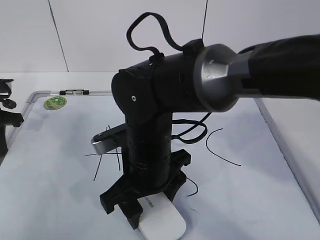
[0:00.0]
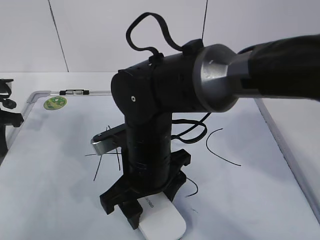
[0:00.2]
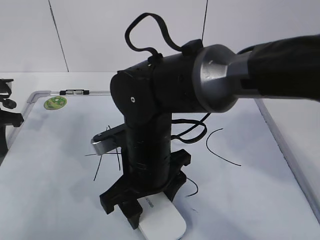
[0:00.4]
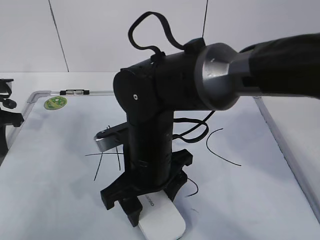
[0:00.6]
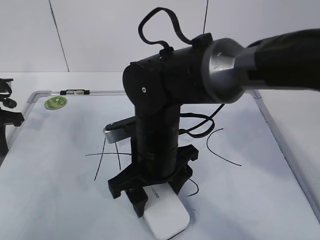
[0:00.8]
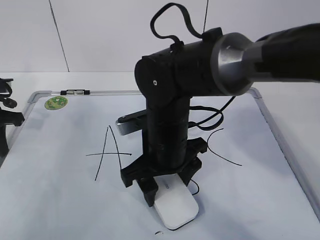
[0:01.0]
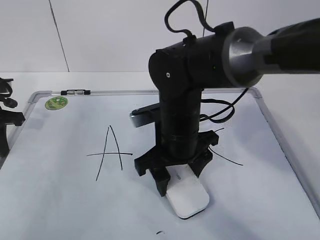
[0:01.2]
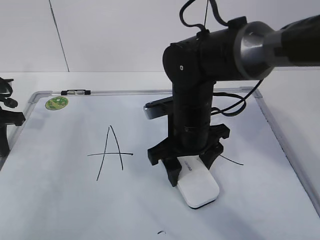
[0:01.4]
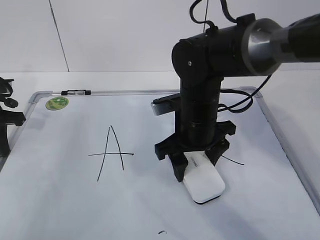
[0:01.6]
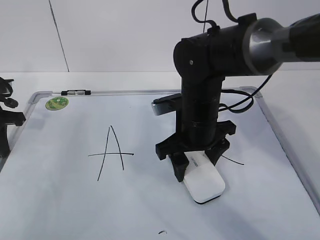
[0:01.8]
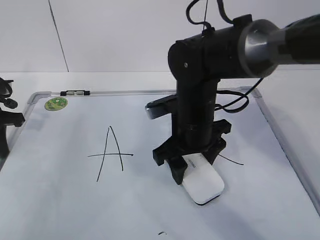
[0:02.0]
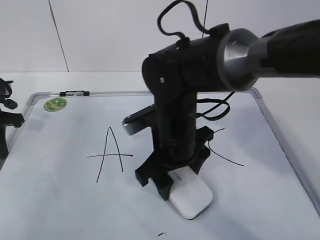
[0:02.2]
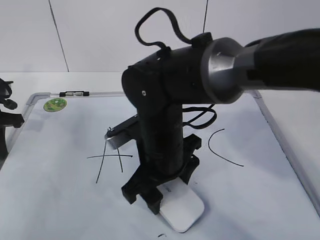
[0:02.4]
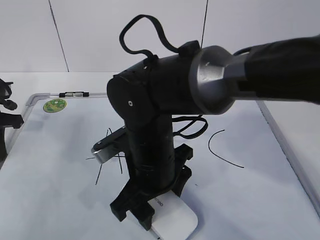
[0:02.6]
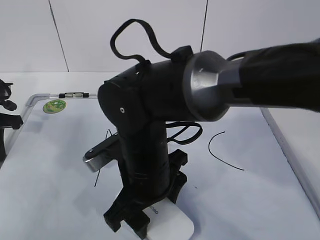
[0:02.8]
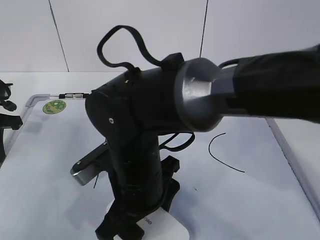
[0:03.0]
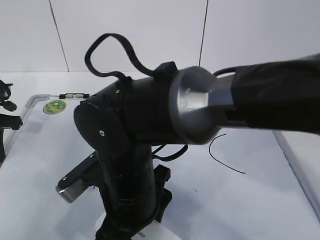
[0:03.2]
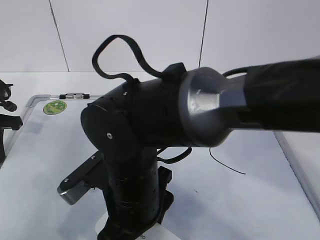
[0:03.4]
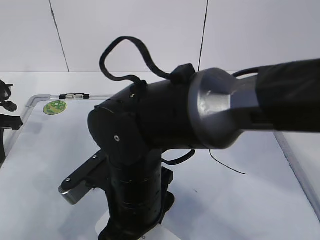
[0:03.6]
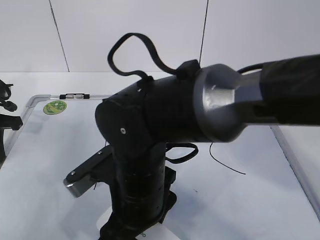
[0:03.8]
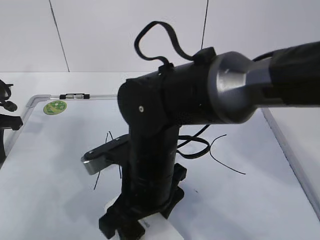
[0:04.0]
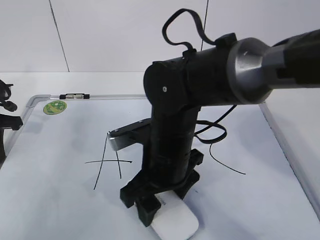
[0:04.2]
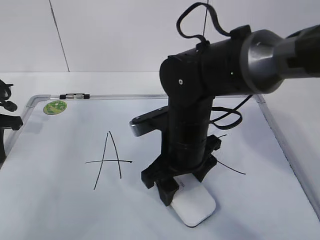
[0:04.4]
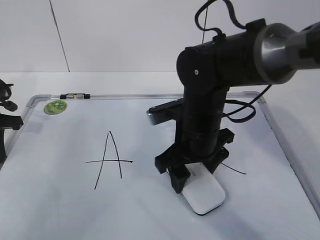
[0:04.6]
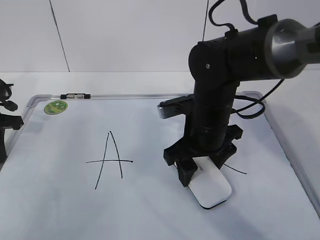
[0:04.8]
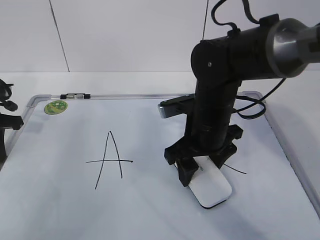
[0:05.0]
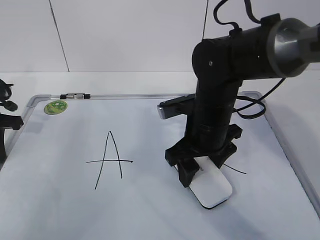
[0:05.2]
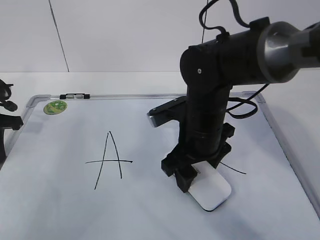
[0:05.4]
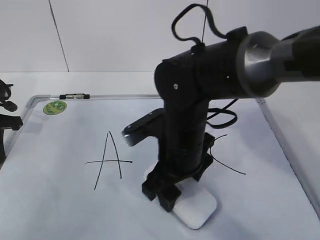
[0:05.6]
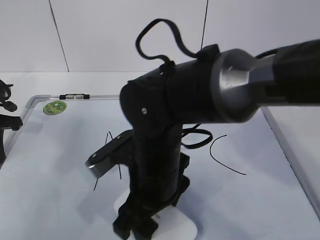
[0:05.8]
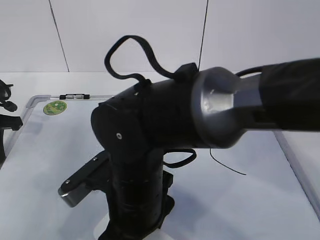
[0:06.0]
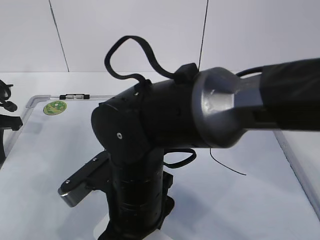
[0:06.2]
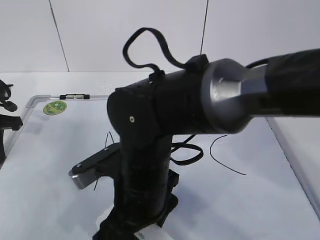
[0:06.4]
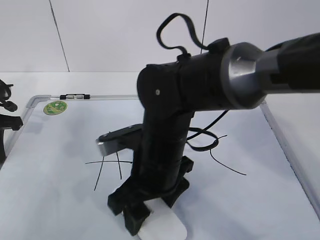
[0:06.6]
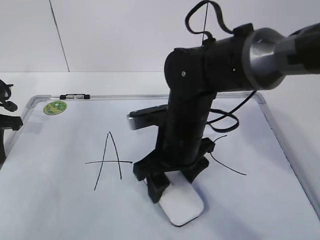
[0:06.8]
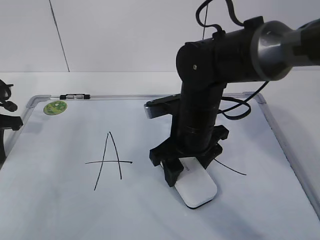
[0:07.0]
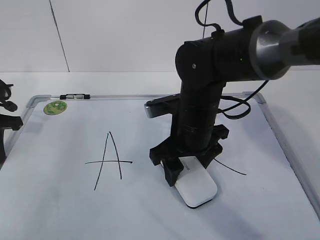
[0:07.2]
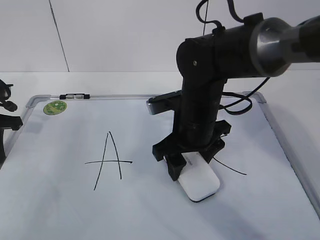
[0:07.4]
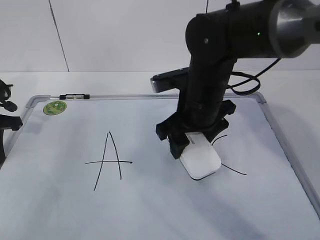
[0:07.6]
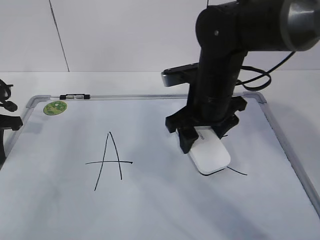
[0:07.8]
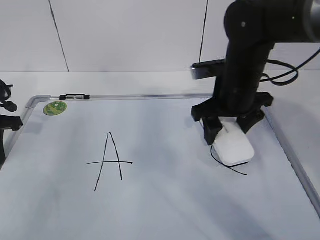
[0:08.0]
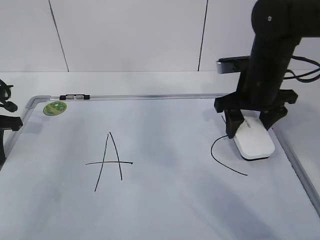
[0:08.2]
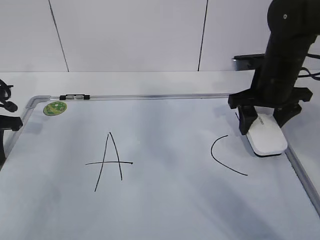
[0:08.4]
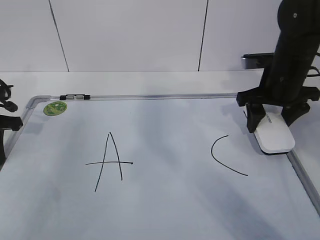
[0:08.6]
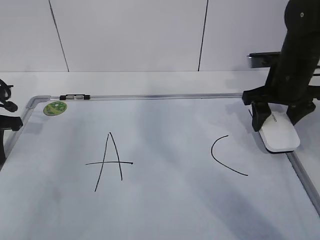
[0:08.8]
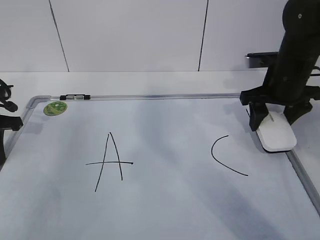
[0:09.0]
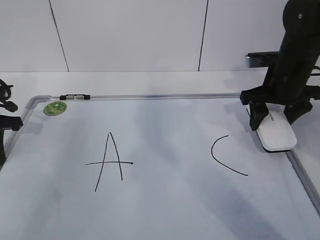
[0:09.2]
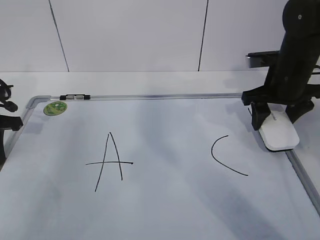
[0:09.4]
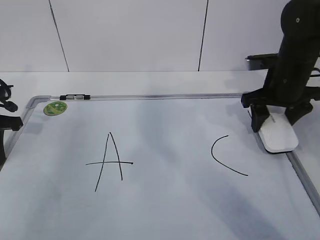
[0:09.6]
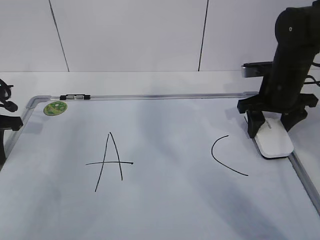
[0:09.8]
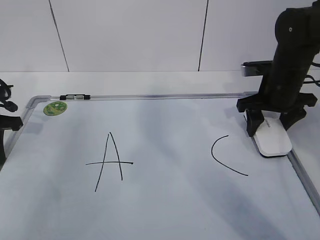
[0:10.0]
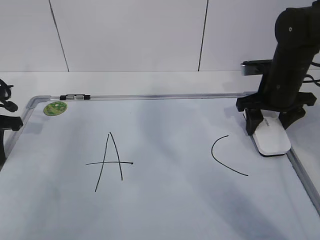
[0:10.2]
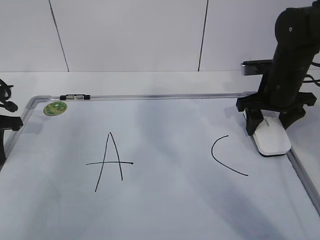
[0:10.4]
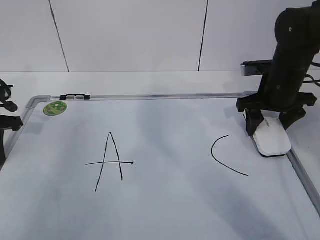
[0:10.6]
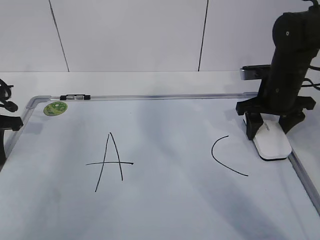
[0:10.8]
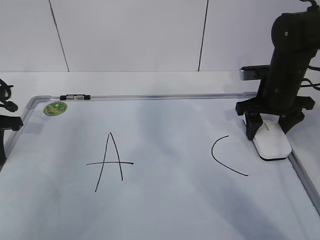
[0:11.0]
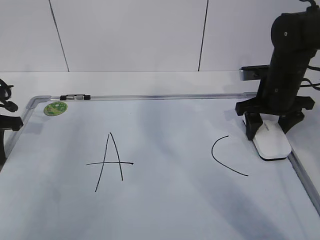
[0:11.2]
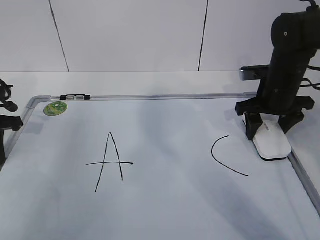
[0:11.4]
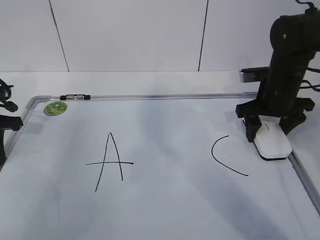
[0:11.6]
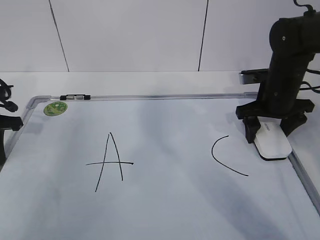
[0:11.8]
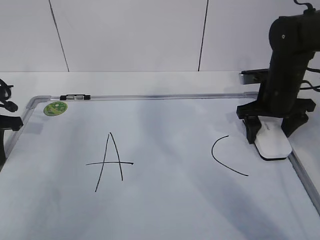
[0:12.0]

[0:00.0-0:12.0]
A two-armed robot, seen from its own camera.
Task of the whole recording: pick up the eraser on the blackboard and erase the letter "B".
Step, 0:00.0 to 0:02.6: Erase the letter B with your right hand.
Step, 0:02.8 to 0:06.2: Put down the eraser with your right hand.
0:00.0 to 0:01.6: The right gripper shifts roughly 10 cm to the right and forward.
0:01.6 to 0:03.0: The right gripper goes some 15 cm backward and to the left.
0:03.0 to 0:04.4: The right gripper shifts some 10 cm to the right and forward.
0:04.4 to 0:06.0: The right gripper is displaced backward and to the left by approximately 10 cm.
0:06.0 to 0:07.6: The right gripper travels forward and to the right by some 15 cm.
0:07.6 to 0:09.0: The right gripper shifts approximately 15 cm to the right.
0:09.0 to 0:10.4: The grippers stay close to where they were, moving slightly.
0:10.4 to 0:12.0: The right gripper opens.

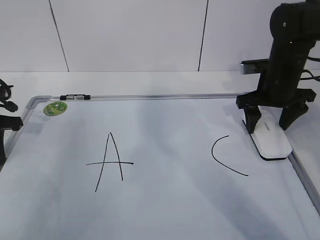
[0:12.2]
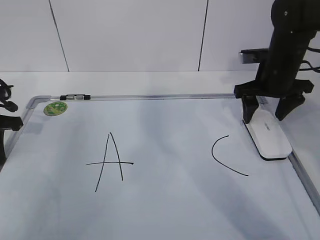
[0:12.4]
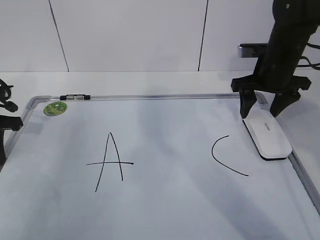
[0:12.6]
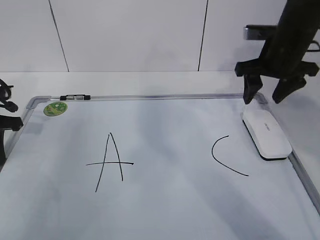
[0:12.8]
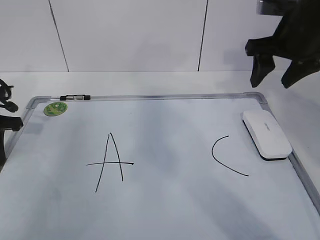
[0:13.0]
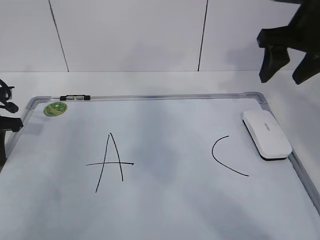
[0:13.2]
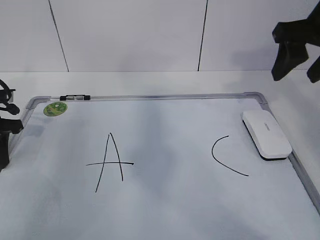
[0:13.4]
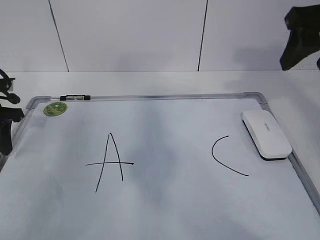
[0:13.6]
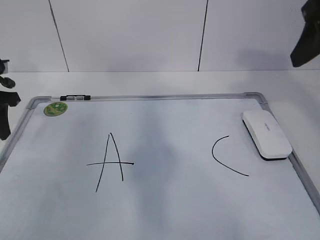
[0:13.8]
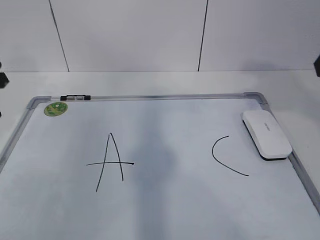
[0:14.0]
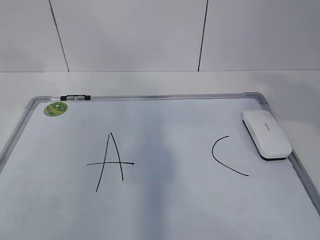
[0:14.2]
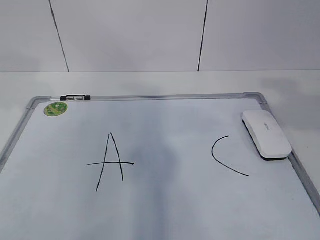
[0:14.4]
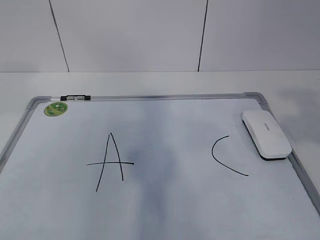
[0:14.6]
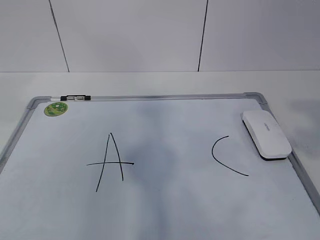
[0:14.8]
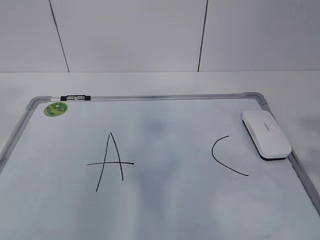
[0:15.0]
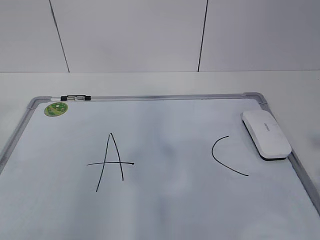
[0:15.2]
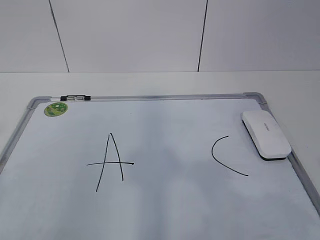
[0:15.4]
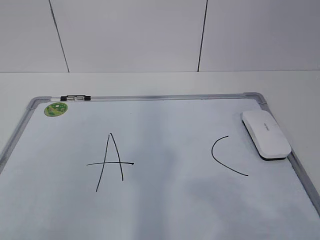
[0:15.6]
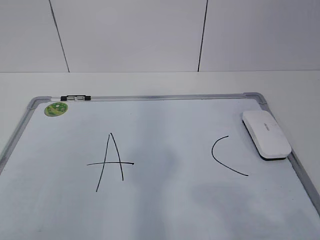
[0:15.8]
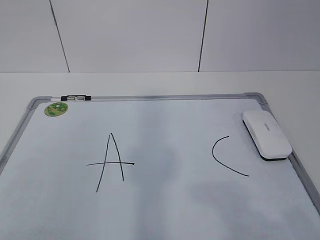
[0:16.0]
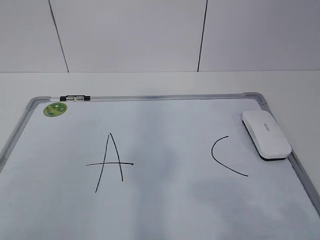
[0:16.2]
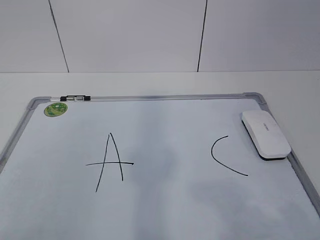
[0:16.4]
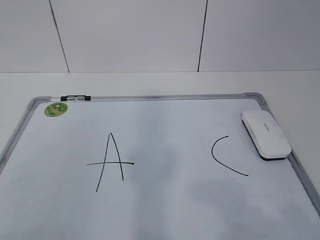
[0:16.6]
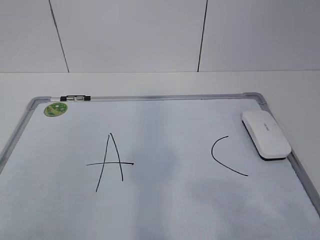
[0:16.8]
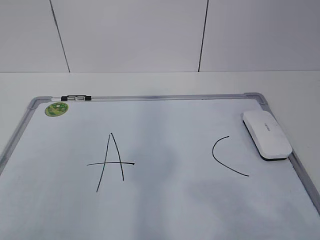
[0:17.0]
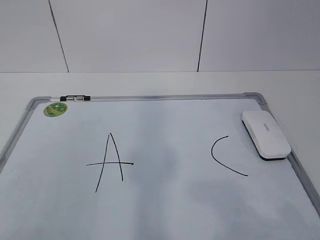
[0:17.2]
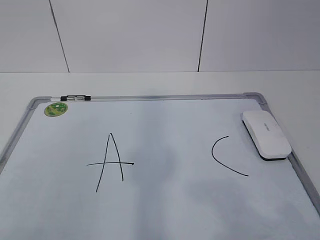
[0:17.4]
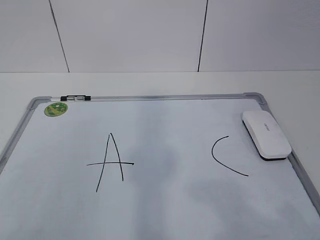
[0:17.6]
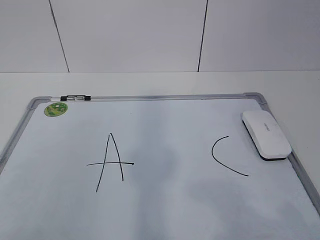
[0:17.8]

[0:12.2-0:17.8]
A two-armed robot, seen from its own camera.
Task of the whole recording: pick up the eraser on the blackboard and erase the letter "B".
0:12.2 to 0:13.6: The left gripper opens; the right gripper is displaced upward and backward by about 20 cm, and closes up.
0:13.6 to 0:15.0: The left gripper is displaced backward and upward by some 35 cm. The right gripper goes some 25 cm backward.
0:15.0 to 0:16.4: The left gripper shifts about 15 cm backward and downward.
0:16.4 to 0:17.8: The two grippers keep their place.

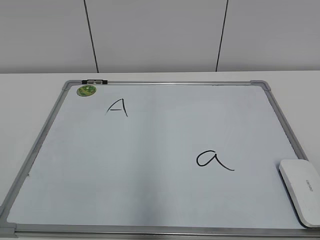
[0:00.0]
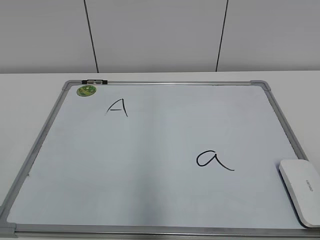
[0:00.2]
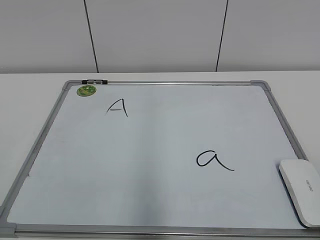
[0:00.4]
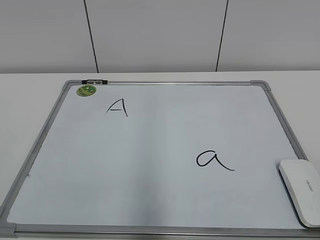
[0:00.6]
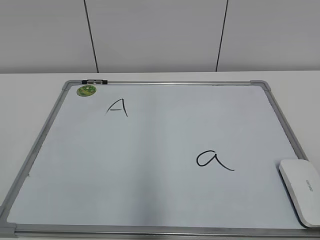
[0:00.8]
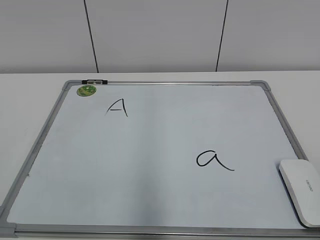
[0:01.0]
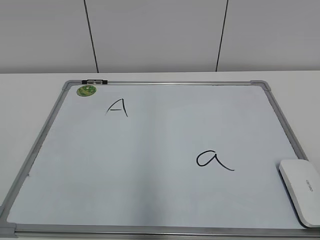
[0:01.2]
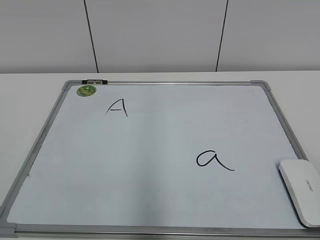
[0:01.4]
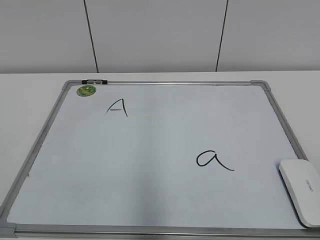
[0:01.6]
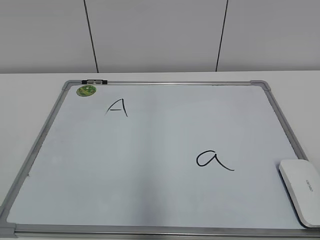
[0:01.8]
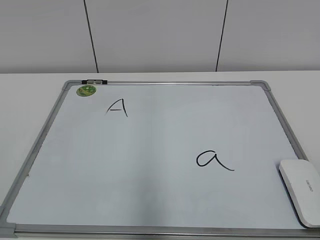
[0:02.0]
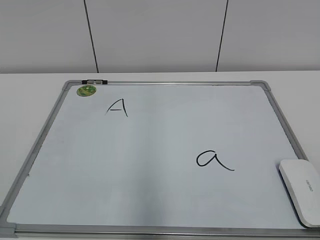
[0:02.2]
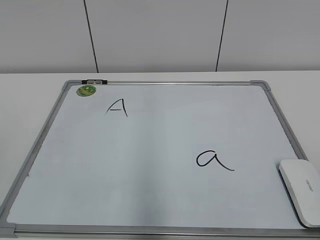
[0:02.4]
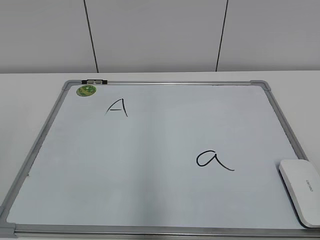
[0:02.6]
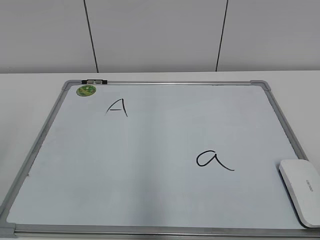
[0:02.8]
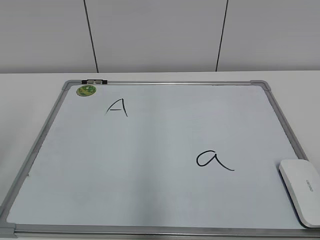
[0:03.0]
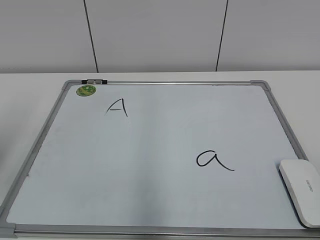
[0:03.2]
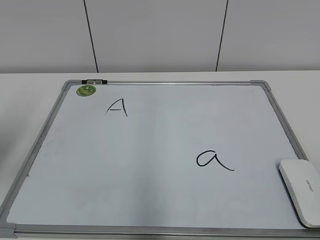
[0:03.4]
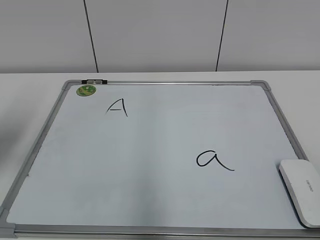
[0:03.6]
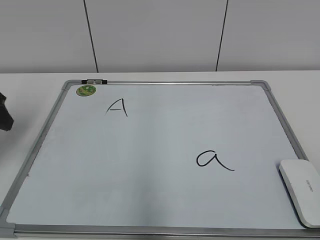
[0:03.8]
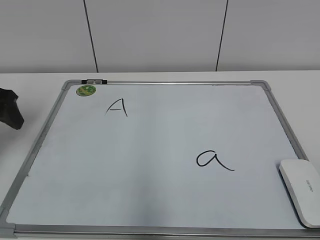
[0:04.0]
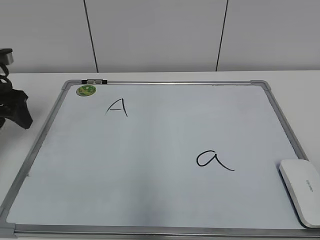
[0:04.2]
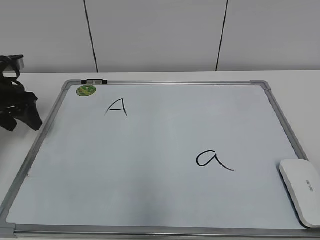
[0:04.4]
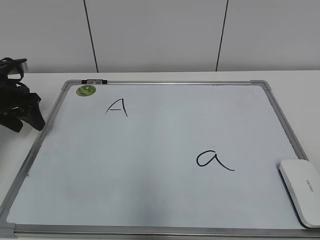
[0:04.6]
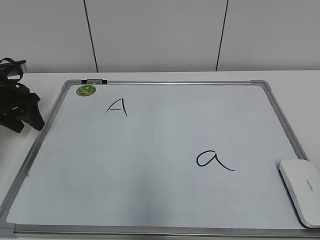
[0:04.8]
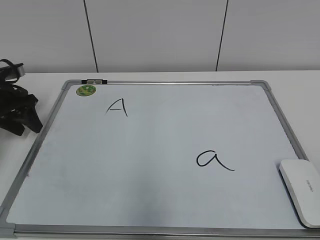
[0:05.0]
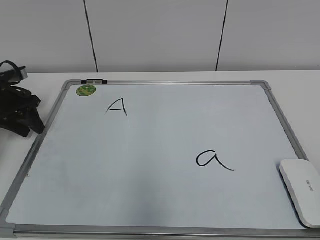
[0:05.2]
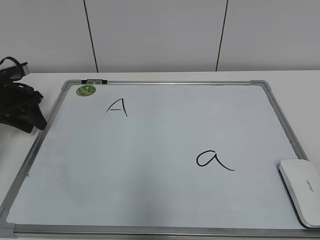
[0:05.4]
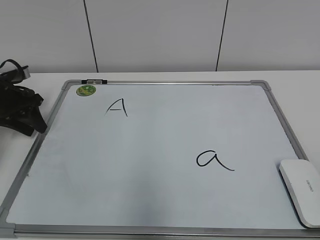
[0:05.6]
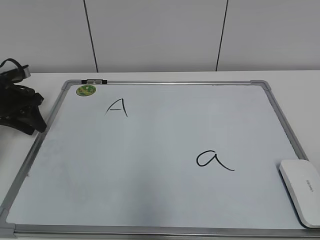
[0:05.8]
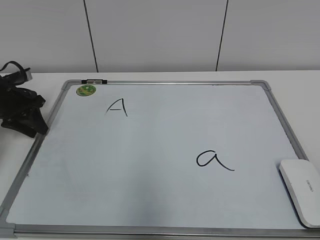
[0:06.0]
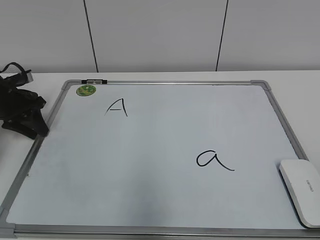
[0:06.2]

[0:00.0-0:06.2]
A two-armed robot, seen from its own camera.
Task of the whole recording: pick up the eraser on the blackboard and erase the letter "a".
0:03.2 to 0:04.6: The left gripper is displaced forward and downward by roughly 25 cm.
0:04.6 to 0:06.2: The left gripper shifts by roughly 5 cm, and closes up.
